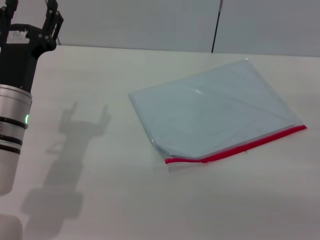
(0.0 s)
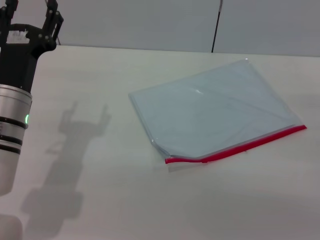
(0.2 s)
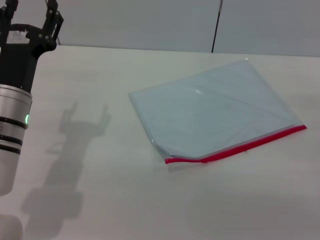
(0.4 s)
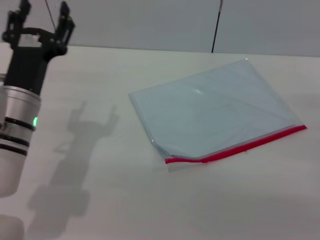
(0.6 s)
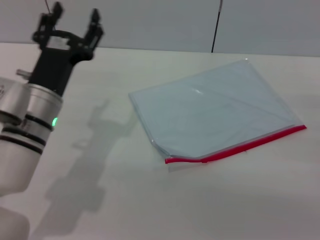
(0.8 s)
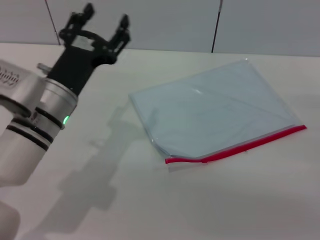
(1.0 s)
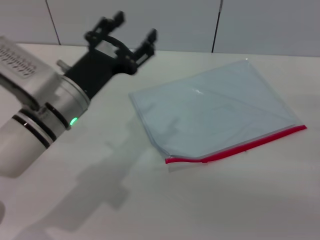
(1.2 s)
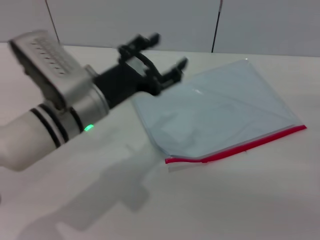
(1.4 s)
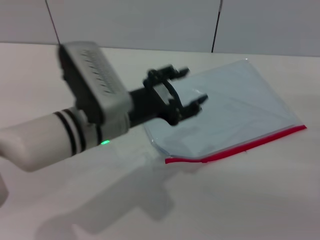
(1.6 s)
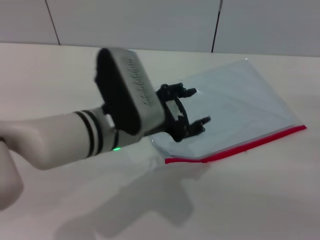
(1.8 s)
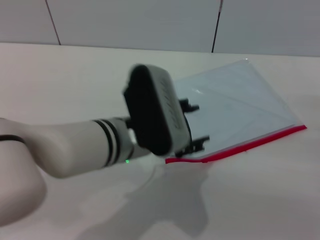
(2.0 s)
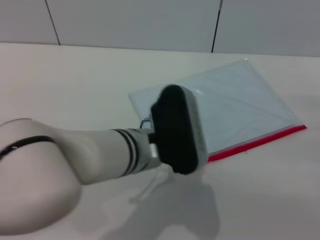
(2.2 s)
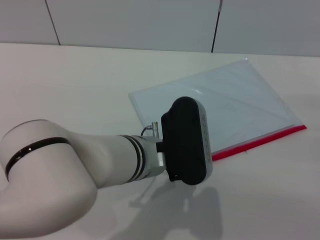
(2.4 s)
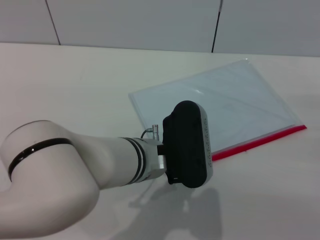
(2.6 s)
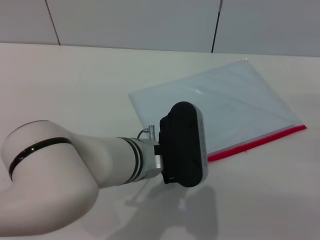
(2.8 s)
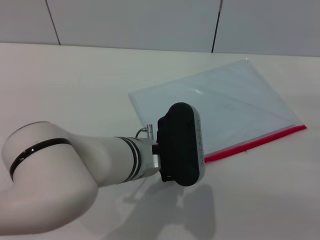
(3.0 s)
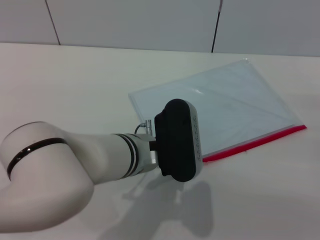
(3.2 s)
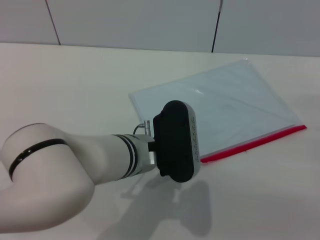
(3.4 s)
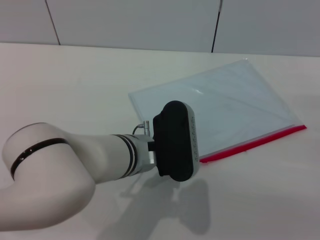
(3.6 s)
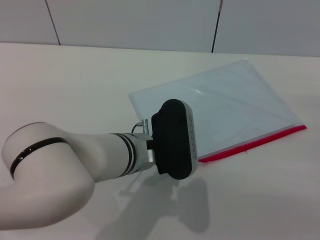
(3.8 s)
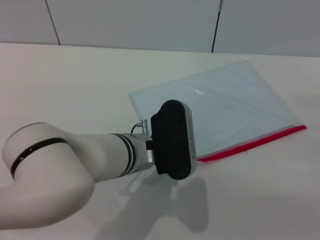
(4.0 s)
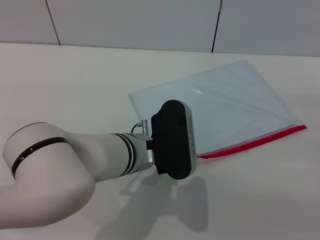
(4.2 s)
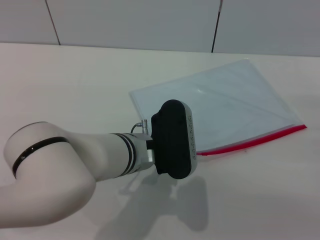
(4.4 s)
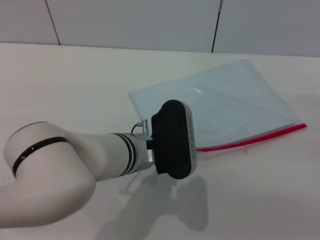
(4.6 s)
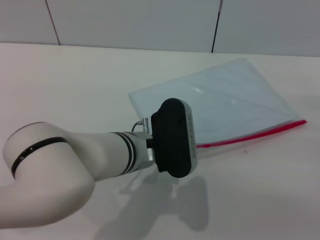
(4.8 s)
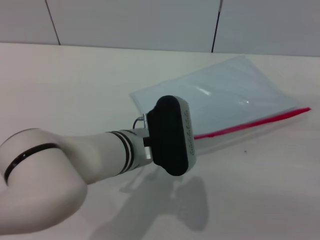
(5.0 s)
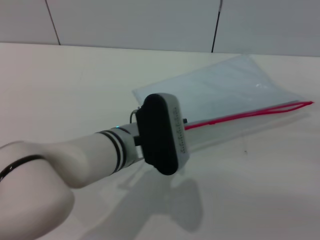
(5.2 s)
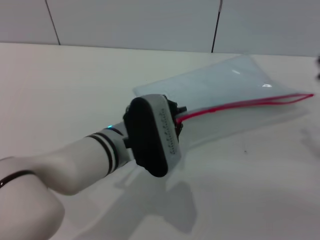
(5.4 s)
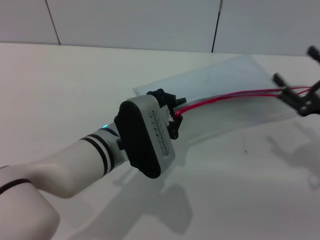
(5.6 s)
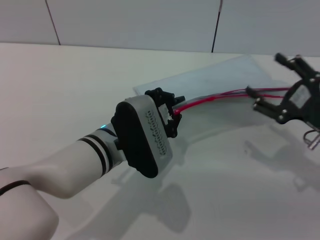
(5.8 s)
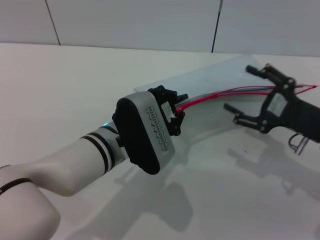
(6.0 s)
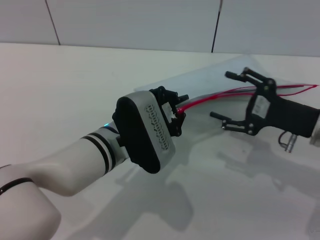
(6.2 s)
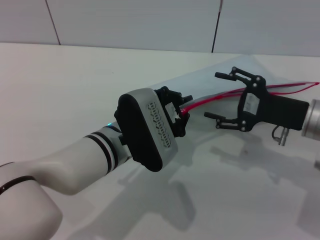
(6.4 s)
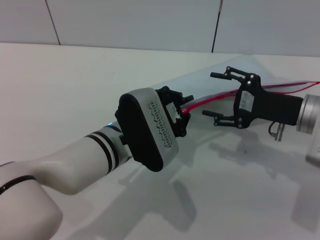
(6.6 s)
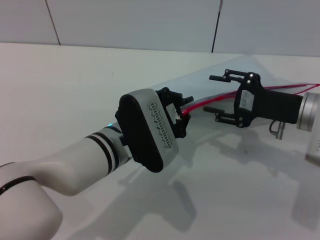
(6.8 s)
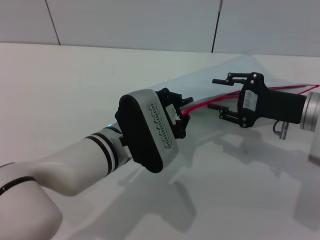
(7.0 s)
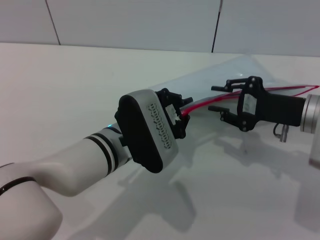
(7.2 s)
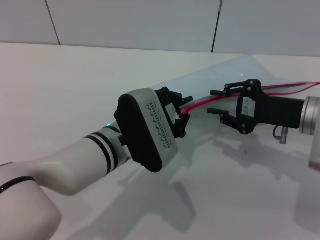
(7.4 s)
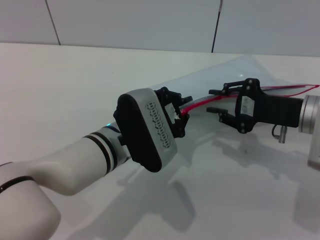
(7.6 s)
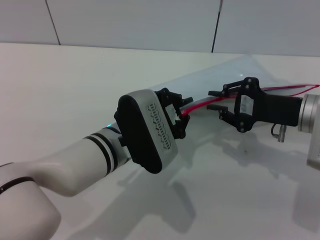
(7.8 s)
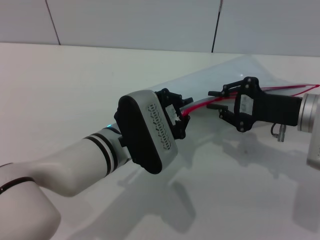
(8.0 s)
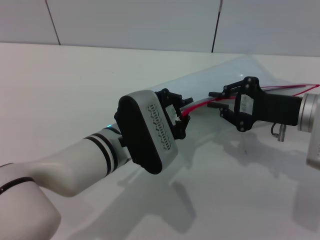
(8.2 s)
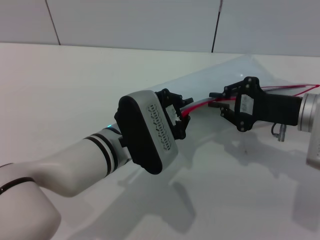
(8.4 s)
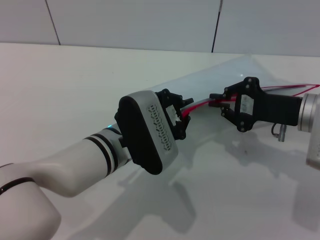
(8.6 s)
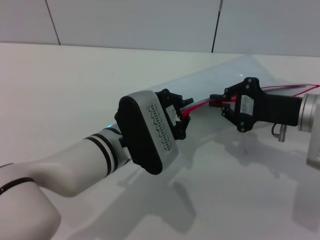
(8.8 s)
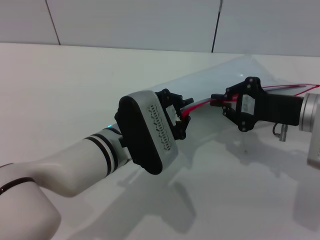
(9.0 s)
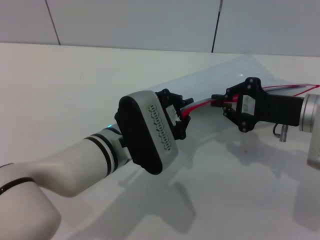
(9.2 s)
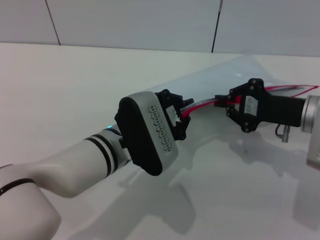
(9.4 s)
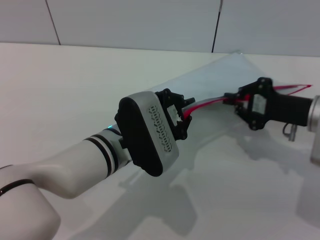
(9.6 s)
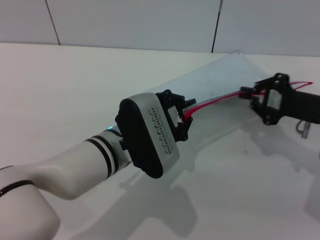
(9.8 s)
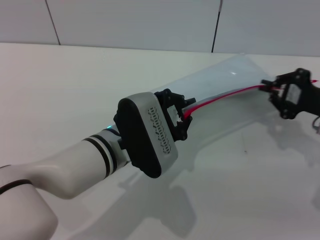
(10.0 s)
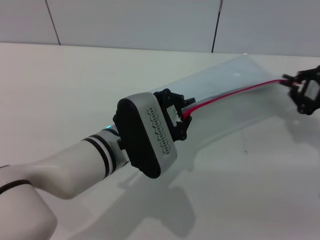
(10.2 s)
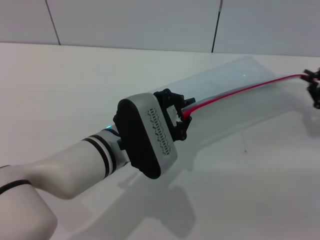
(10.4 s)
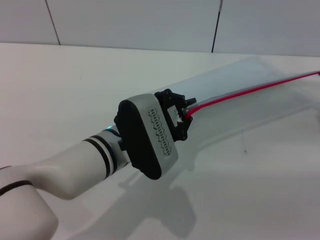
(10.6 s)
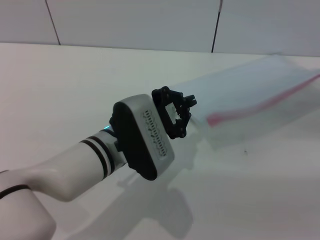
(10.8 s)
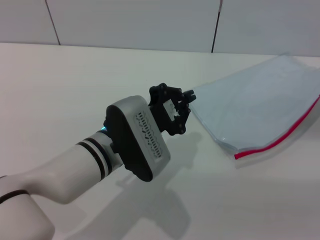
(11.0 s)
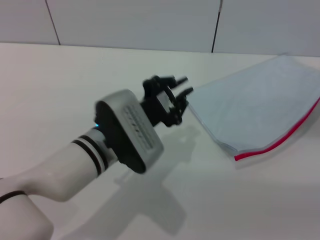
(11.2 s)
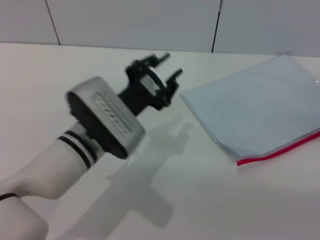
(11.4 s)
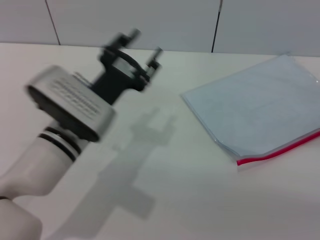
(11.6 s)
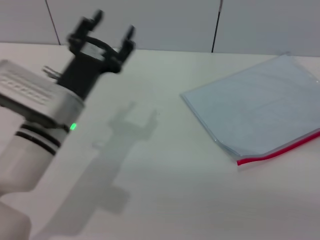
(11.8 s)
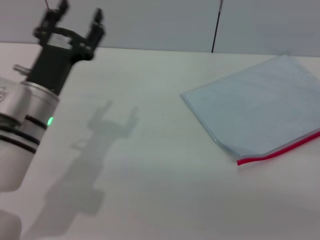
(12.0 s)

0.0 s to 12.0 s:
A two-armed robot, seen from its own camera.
Step, 0.0 to 5.2 s: Pick up the transparent plastic bag with the left gripper.
Step, 5.4 to 11.4 s: Pulling up the zipper on the transparent plastic bag with the right gripper to close it.
0.0 to 1.6 s: The left gripper moves to the right, roughly 10 cm.
1.6 to 3.0 s: The left gripper shifts roughly 5 cm to the right.
3.0 to 4.4 s: The left gripper closes.
4.4 to 6.0 s: The right gripper heads to the left, covering some 10 cm.
6.0 to 7.6 s: The right gripper changes place by roughly 5 cm, and closes up.
7.6 to 9.0 s: The right gripper closes up.
9.0 to 10.4 s: The right gripper heads to the right, covering approximately 10 cm.
10.4 to 12.0 s: The left gripper goes about 10 cm to the left, and opens up. The right gripper goes approximately 5 cm backward, and opens.

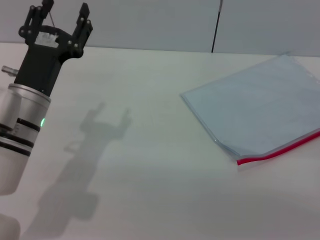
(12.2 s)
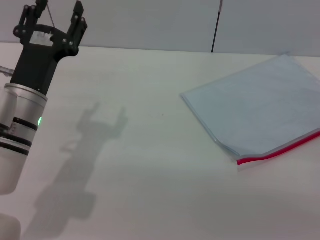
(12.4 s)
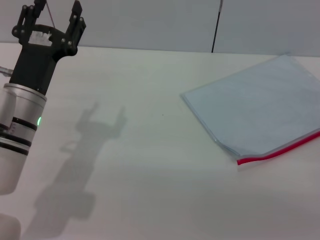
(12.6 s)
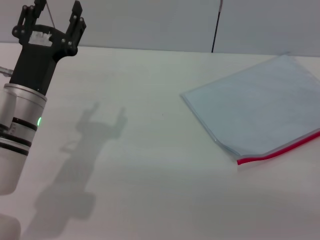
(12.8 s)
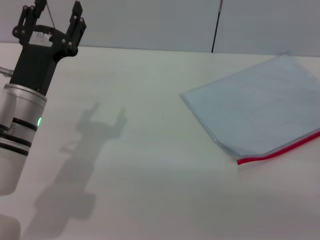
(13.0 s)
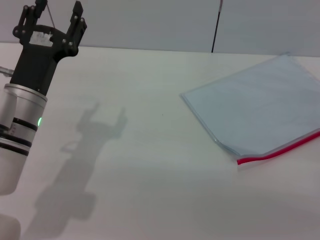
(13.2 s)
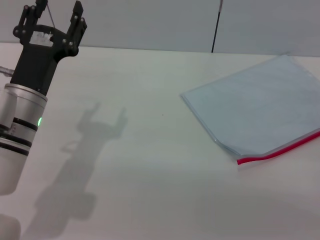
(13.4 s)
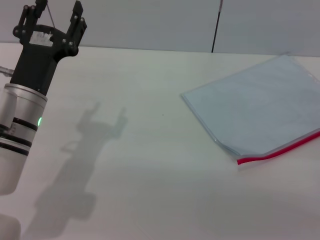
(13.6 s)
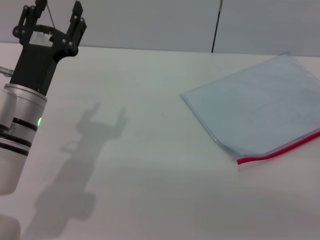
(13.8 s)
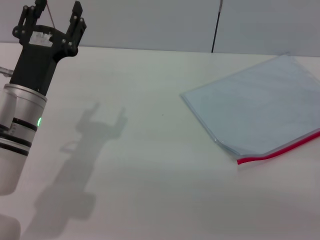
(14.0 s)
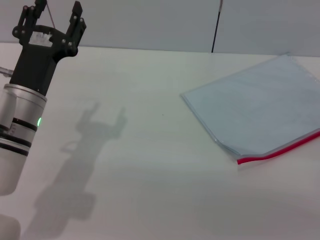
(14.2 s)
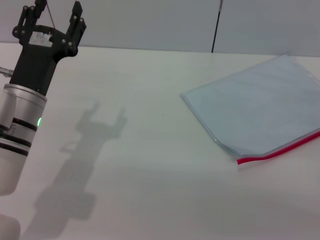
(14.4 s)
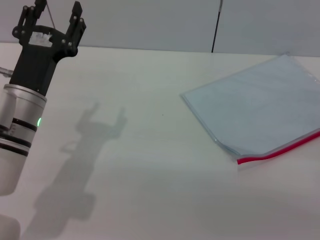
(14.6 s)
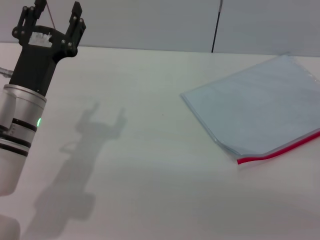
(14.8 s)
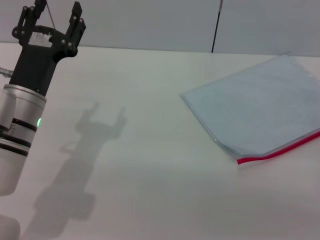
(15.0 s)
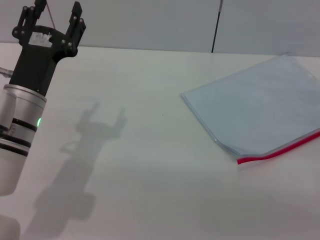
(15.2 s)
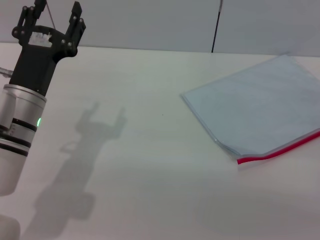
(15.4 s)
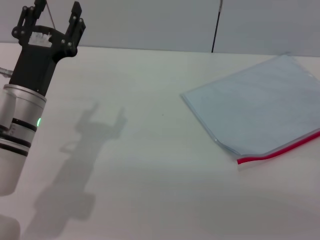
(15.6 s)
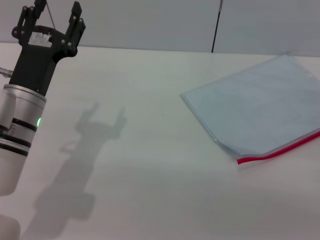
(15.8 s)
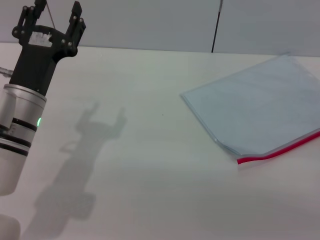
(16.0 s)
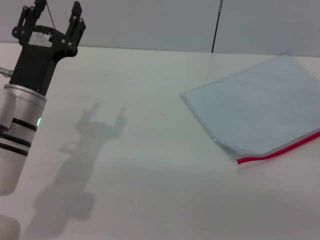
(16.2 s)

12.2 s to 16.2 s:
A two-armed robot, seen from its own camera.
Step, 12.2 to 13.0 s: Place the transparent plastic bag.
12.2 to 13.6 s: The grippers stay close to where they were, moving slightly.
13.6 to 16.2 s: Both grippers stay put.
